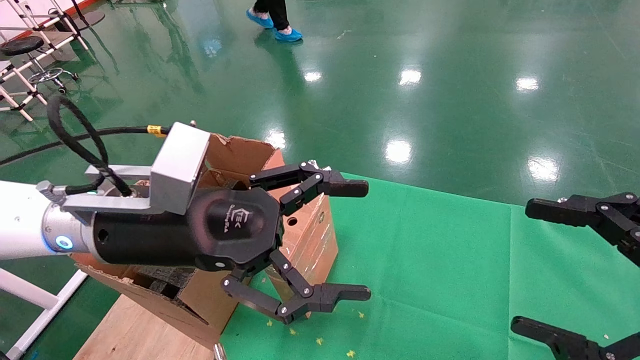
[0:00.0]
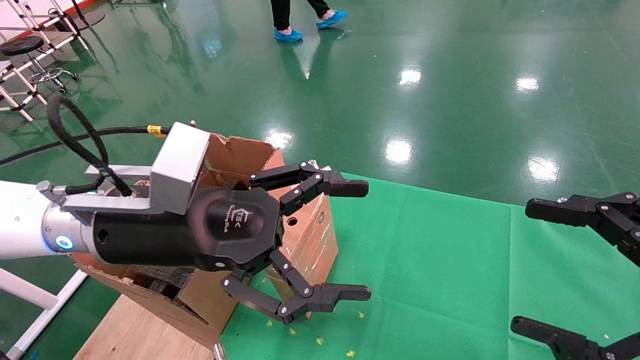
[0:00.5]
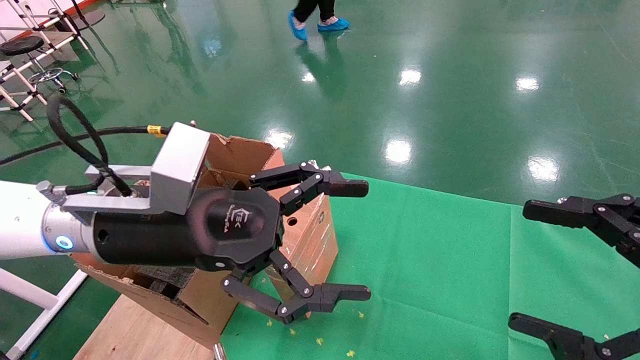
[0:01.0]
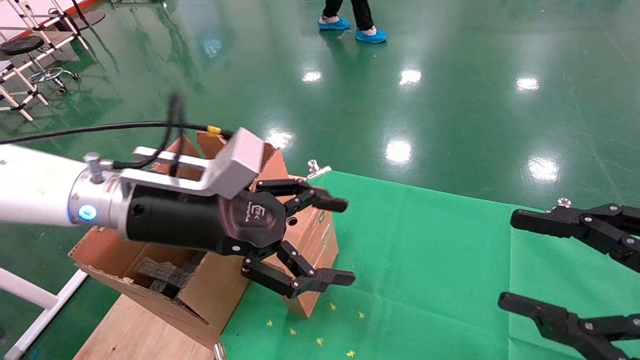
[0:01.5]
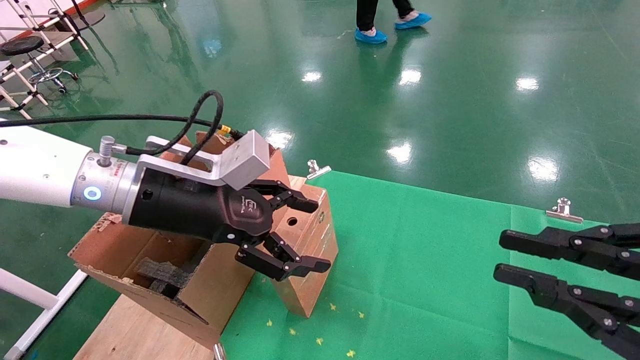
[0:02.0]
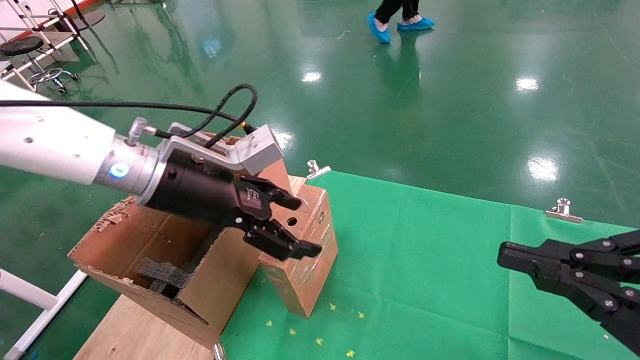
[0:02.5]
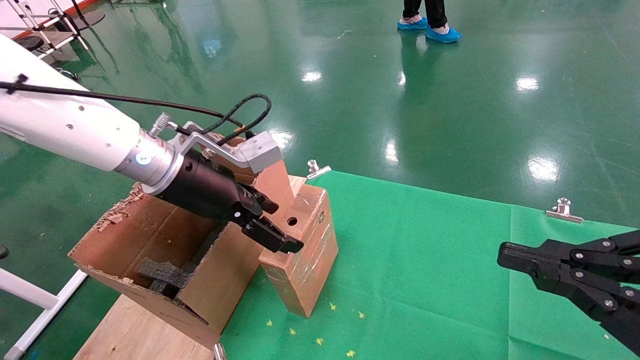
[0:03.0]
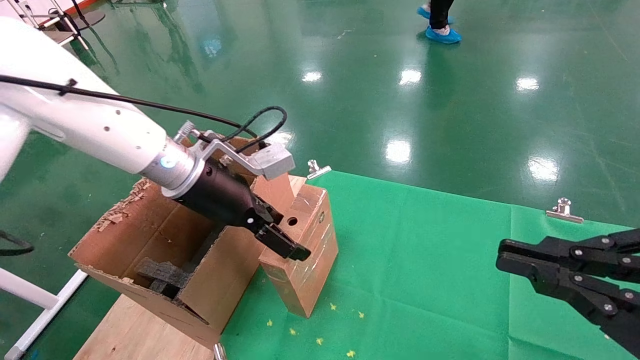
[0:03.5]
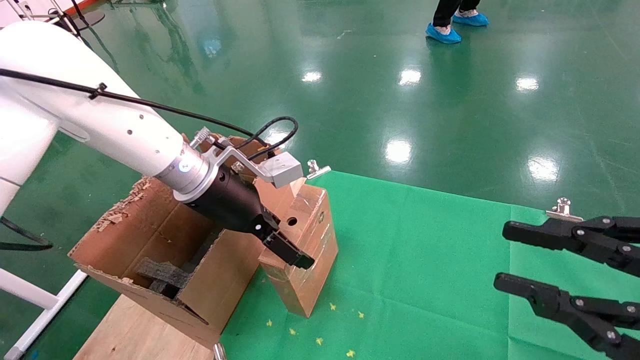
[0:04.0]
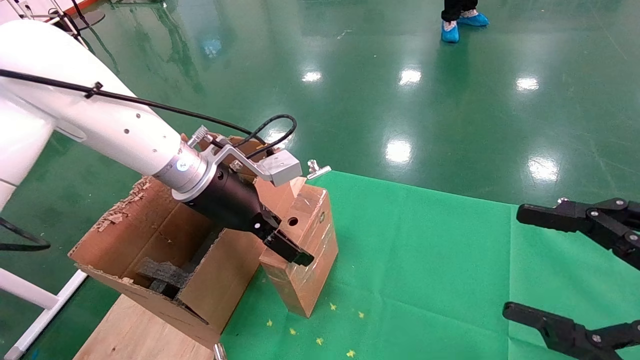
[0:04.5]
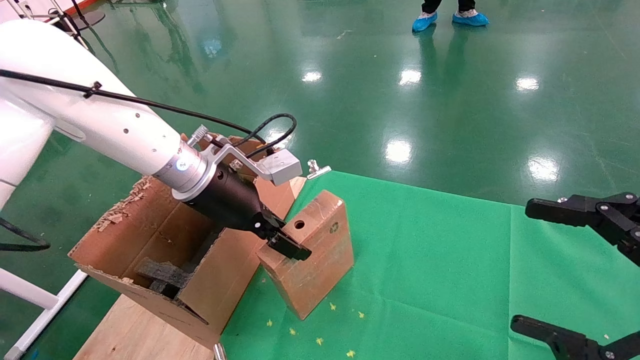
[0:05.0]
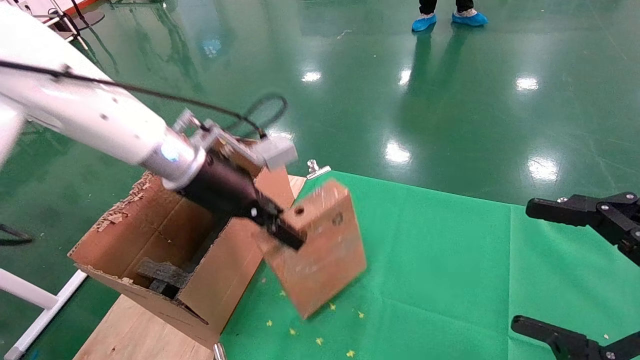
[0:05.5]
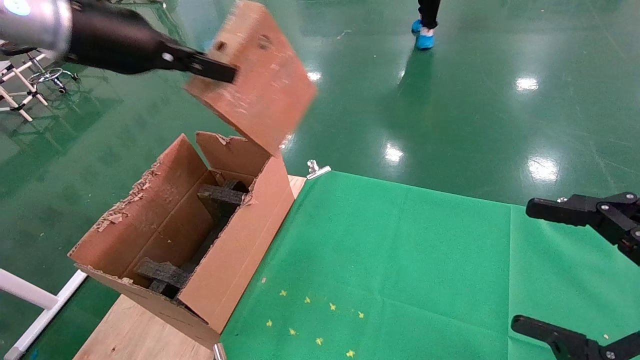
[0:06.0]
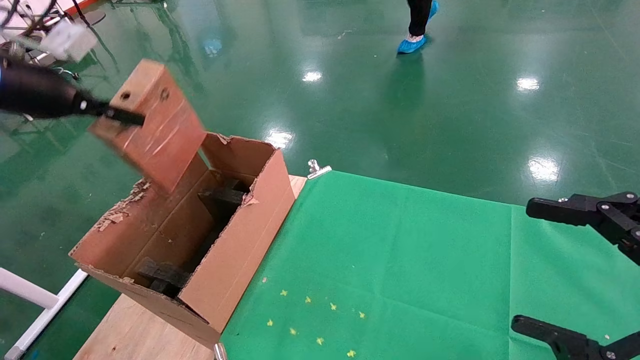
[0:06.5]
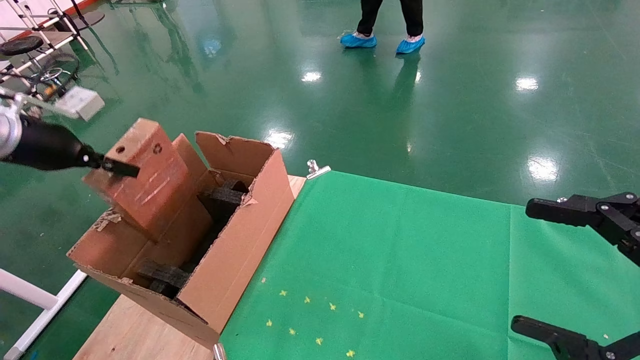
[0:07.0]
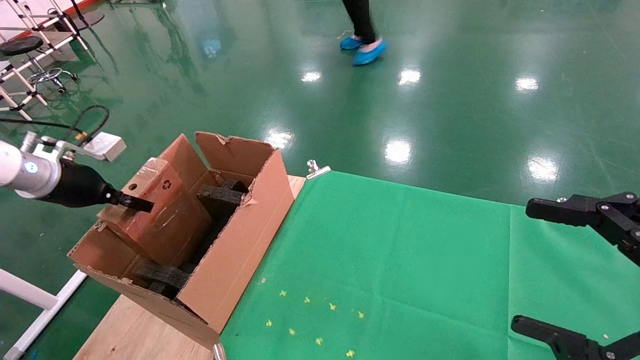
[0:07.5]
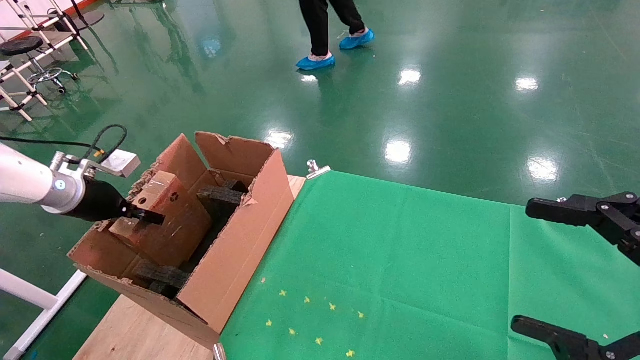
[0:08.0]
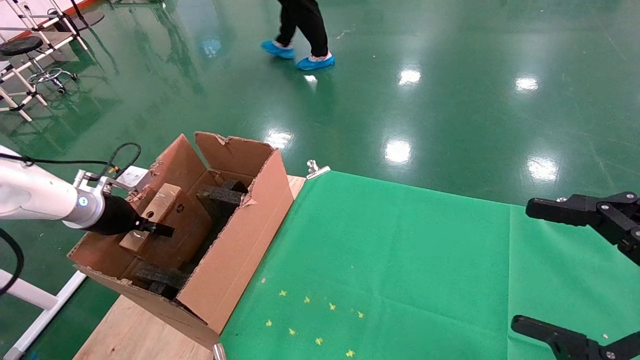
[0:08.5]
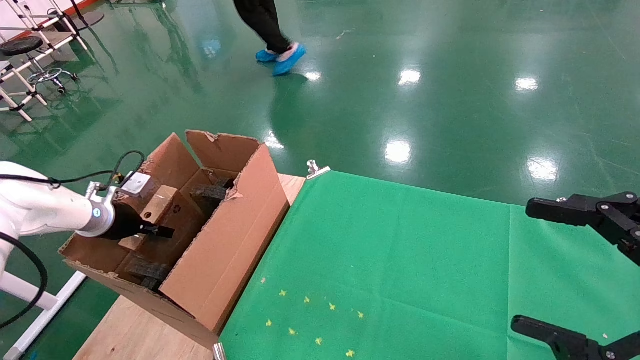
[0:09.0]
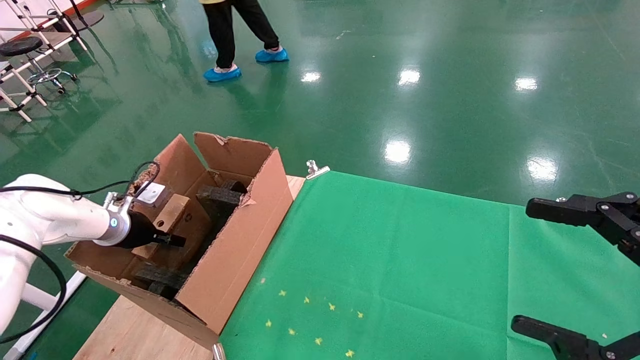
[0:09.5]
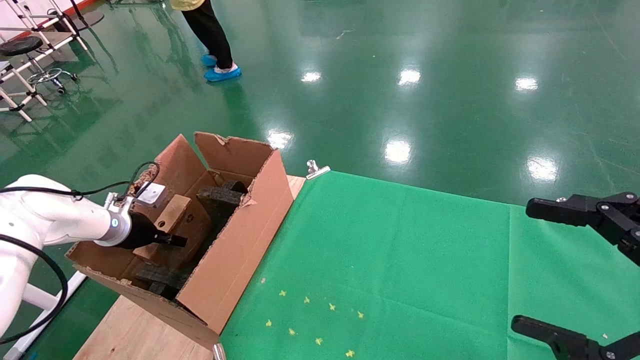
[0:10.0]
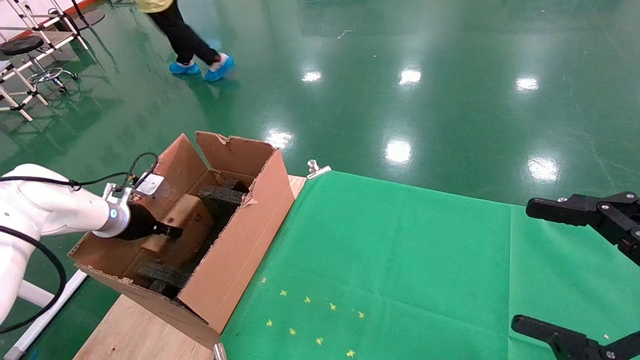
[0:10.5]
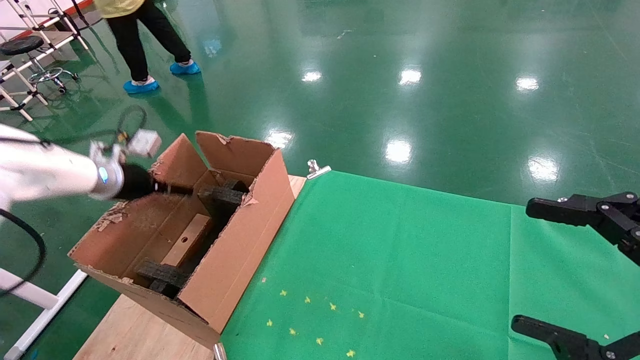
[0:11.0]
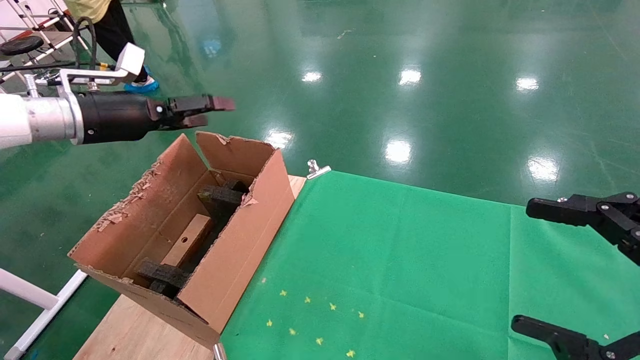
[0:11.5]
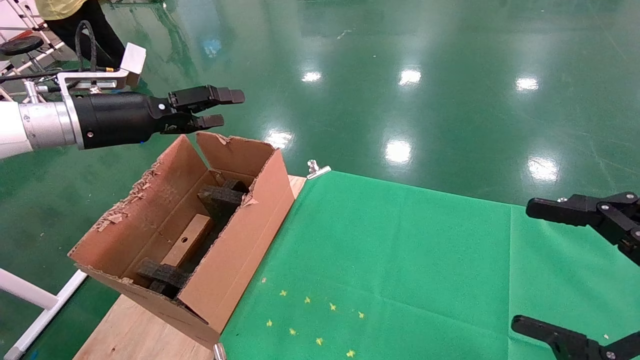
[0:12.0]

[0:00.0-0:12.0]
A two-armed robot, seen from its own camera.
Task of the whole recording: using a robotic arm to pick up a cardboard box and palace it the carton.
Step, 0:01.5 to 0:05.0: Pick up the mouse and the power cord paper box.
Step, 0:05.5 to 0:11.0: Place the mouse and the power cord paper box into the container.
0:00.0 to 0:02.0: The left gripper moves approximately 5 cm, while the right gripper closes.
0:02.0 to 0:04.0: The left gripper shifts approximately 10 cm forward.
0:04.0 to 0:06.0: The left gripper goes roughly 20 cm upward and to the left, and closes its fingers; the right gripper opens up.
0:06.0 to 0:08.0: The left gripper goes approximately 30 cm downward and to the left.
0:08.0 to 0:10.0: The left gripper is displaced downward by about 10 cm.
0:10.0 to 0:12.0: The left gripper goes approximately 25 cm upward and to the right, and opens.

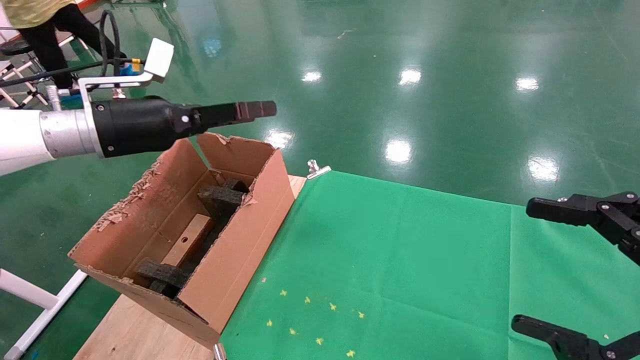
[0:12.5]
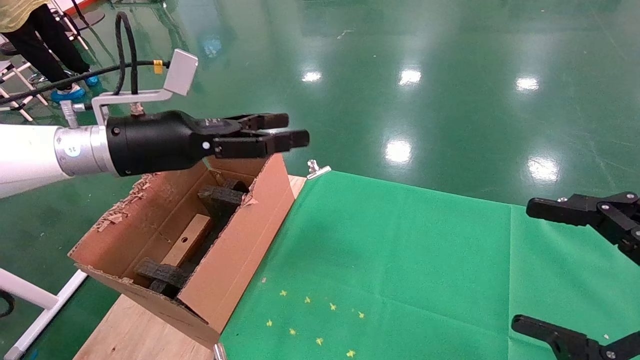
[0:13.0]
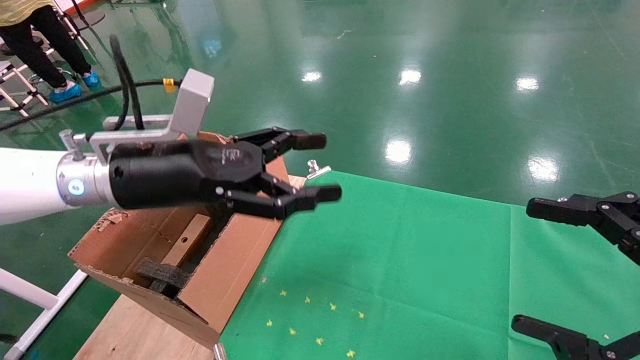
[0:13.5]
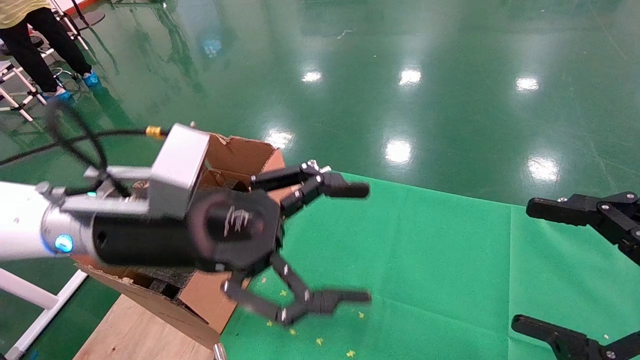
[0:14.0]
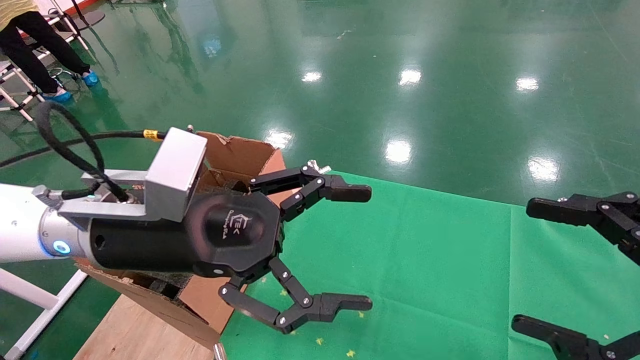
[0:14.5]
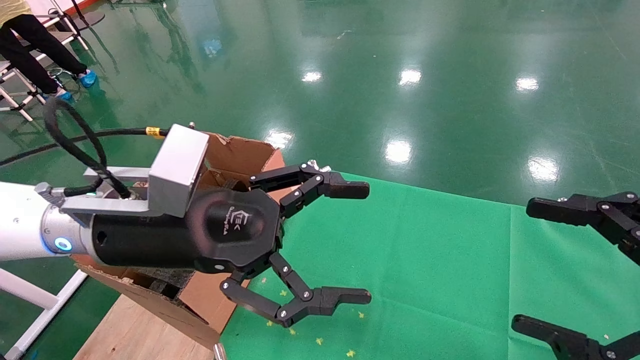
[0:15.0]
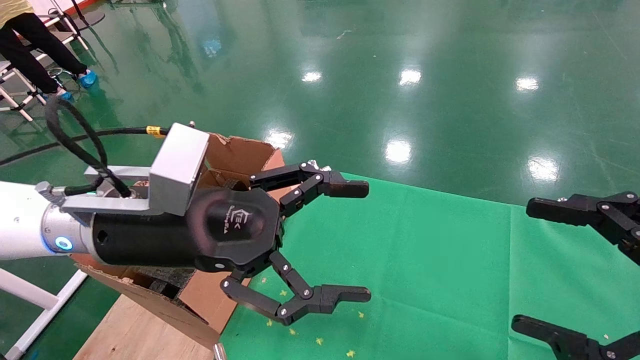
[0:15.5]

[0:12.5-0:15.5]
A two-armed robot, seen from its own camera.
Task of the whole recording: using a robotic arm to pick up a cardboard box and palace it the carton.
0:12.5 to 0:14.0: The left gripper moves to the right and backward, some 20 cm.
0:14.0 to 0:15.5: The two grippers keep their place.

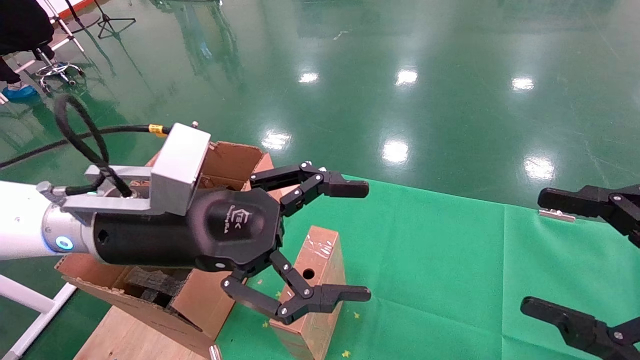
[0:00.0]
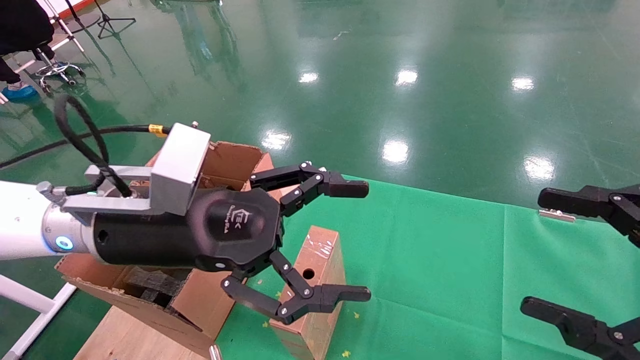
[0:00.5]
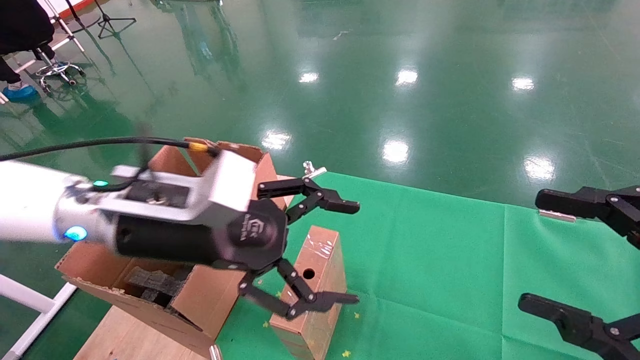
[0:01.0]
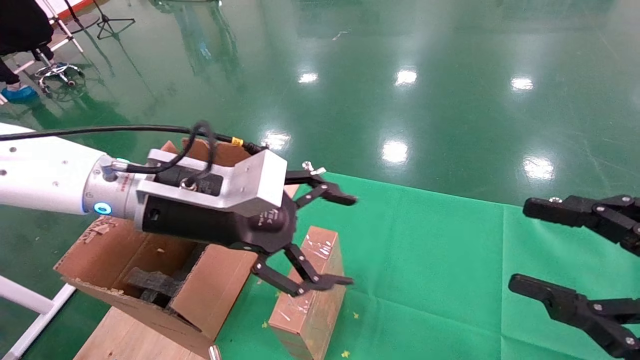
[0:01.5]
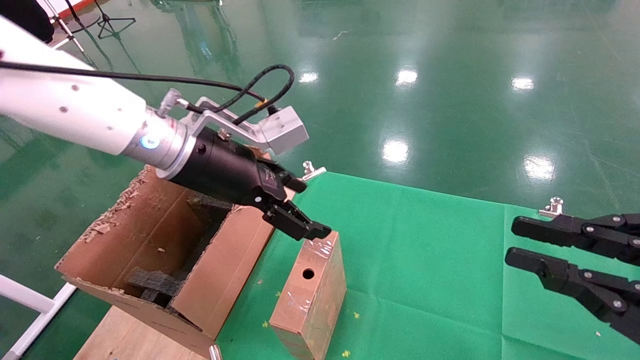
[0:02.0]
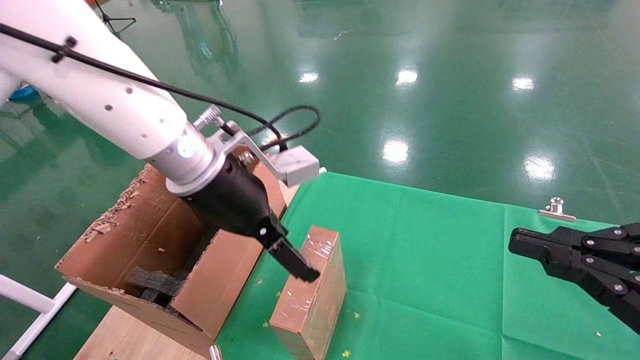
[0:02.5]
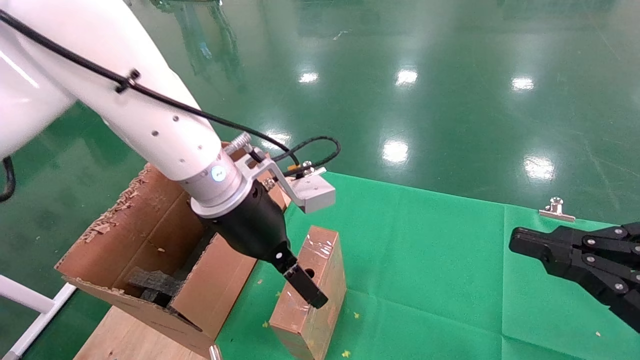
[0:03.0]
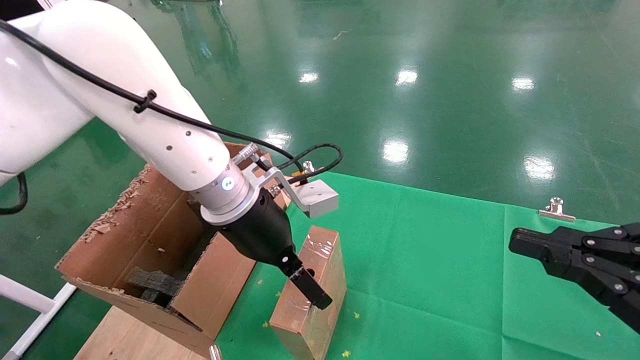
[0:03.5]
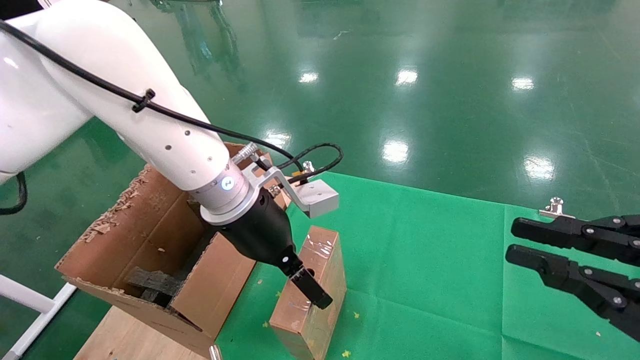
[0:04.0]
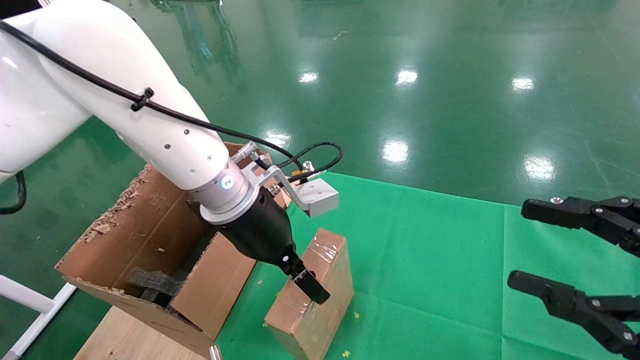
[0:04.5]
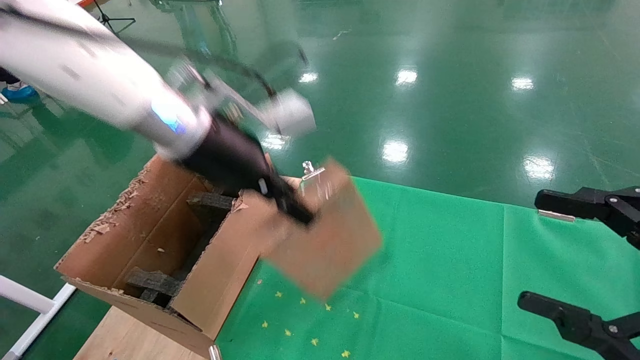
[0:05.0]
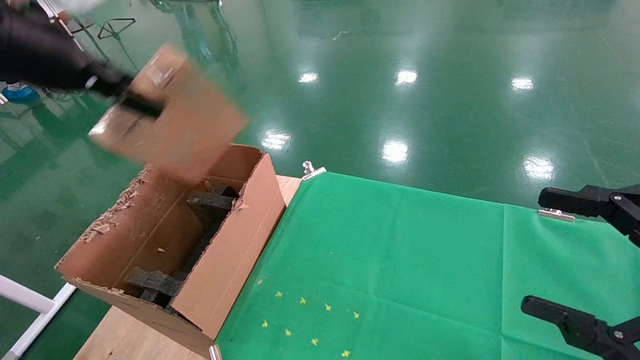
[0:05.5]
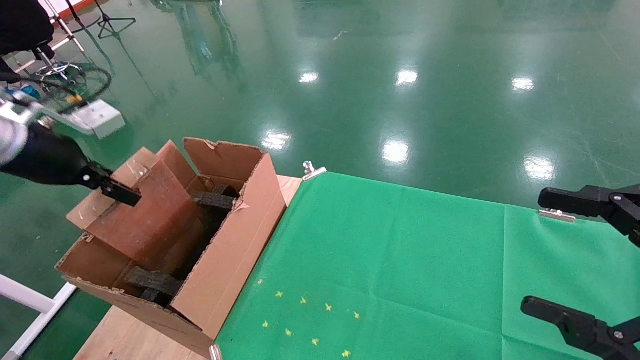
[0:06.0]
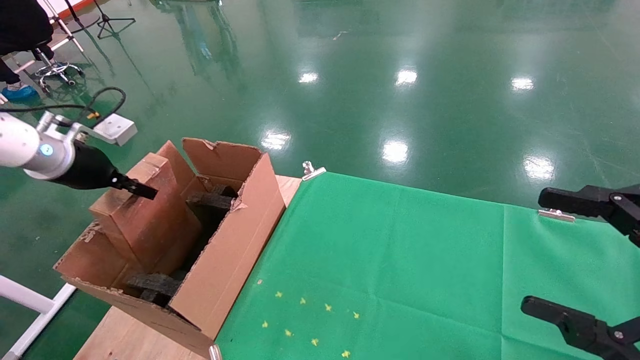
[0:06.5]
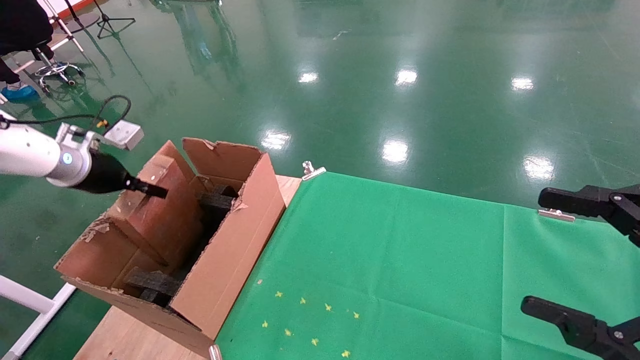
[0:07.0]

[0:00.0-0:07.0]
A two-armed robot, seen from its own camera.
Task of the whole recording: using a robotic arm to pick up a cardboard box and palace it the carton.
Step, 0:01.5 to 0:04.5: Pick up the mouse and the power cord paper box.
0:00.0 to 0:02.0: The right gripper closes up. Meanwhile the left gripper shifts roughly 10 cm forward and upward.
0:02.0 to 0:03.5: The left gripper is displaced downward and to the right by some 10 cm.
0:03.5 to 0:05.0: The left gripper shifts about 10 cm upward, and closes its fingers. The right gripper opens.
0:05.0 to 0:07.0: The left gripper is displaced to the left by about 30 cm.
